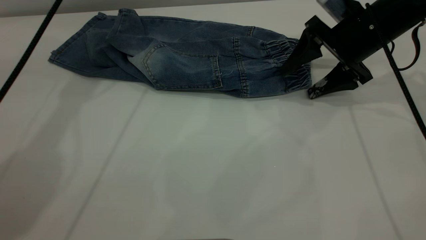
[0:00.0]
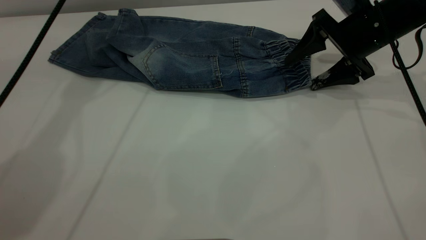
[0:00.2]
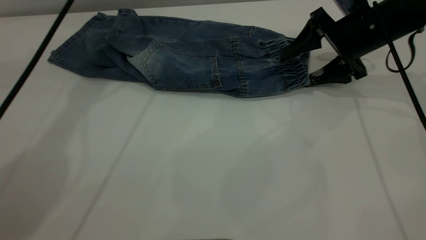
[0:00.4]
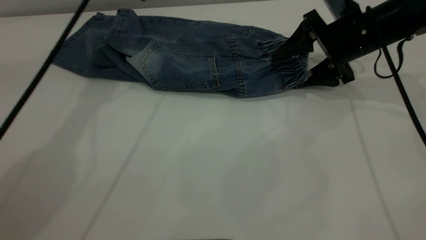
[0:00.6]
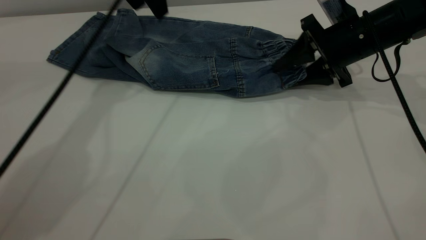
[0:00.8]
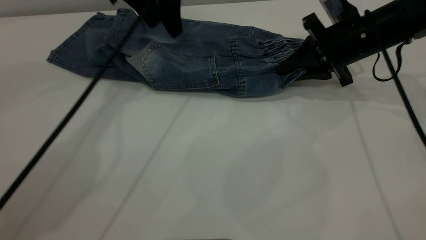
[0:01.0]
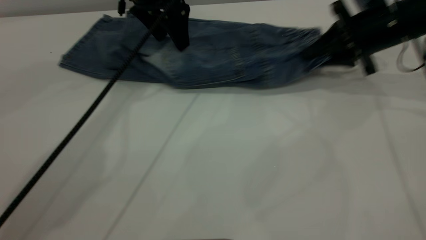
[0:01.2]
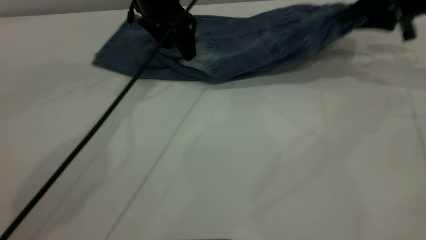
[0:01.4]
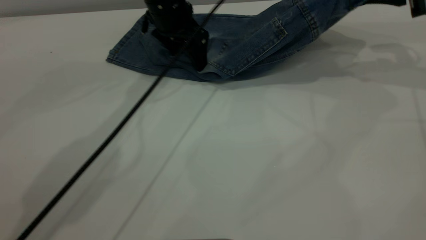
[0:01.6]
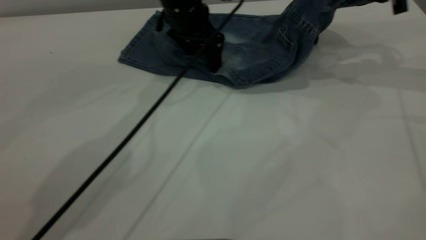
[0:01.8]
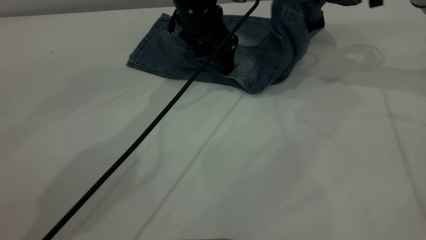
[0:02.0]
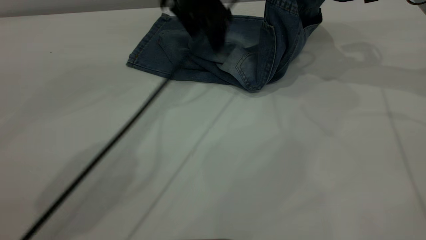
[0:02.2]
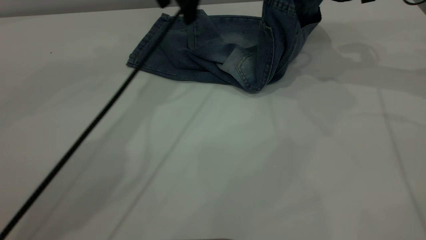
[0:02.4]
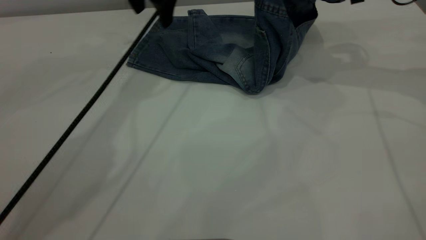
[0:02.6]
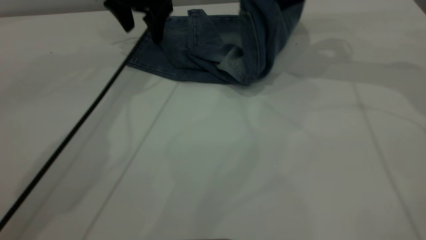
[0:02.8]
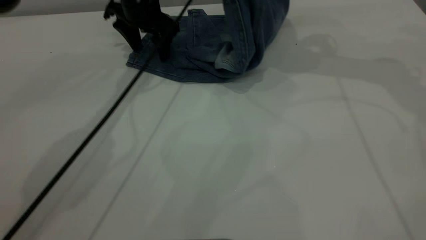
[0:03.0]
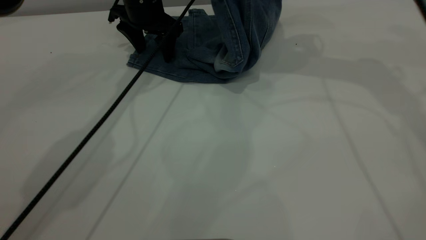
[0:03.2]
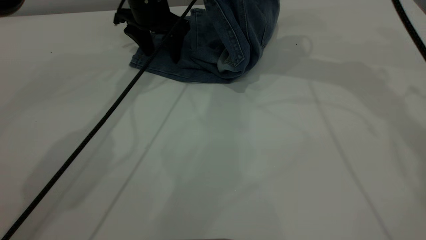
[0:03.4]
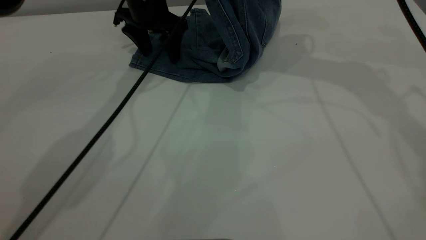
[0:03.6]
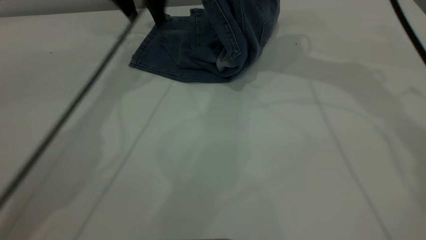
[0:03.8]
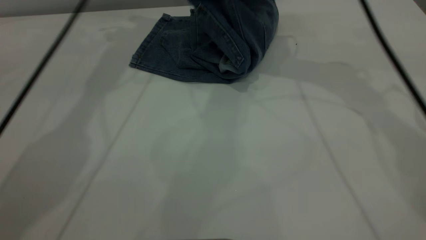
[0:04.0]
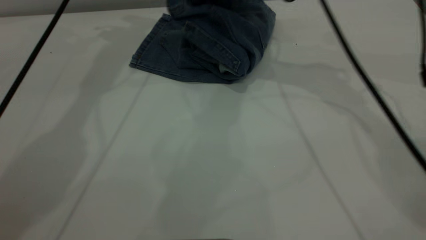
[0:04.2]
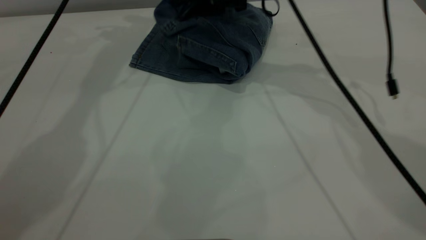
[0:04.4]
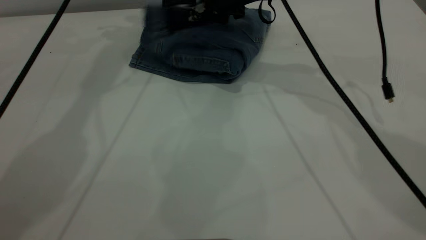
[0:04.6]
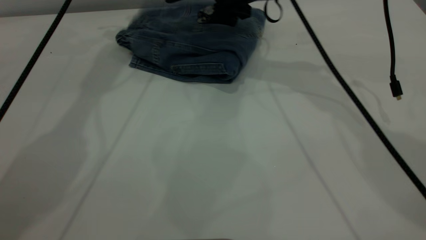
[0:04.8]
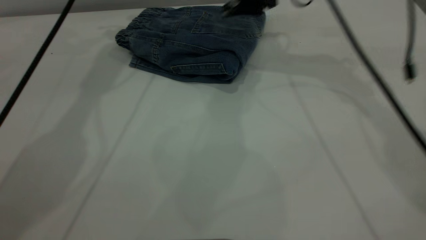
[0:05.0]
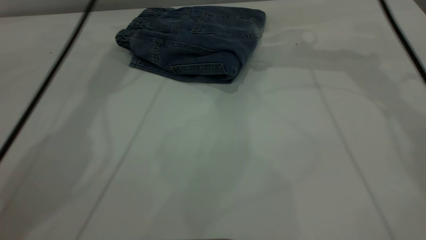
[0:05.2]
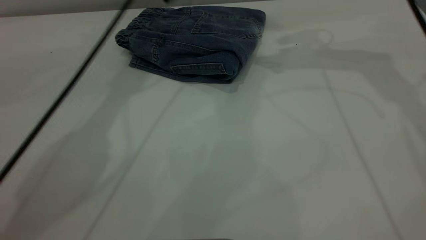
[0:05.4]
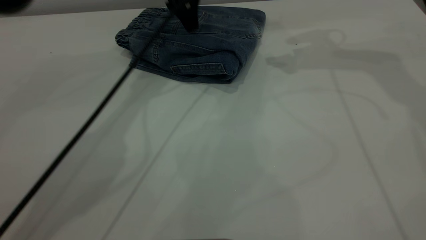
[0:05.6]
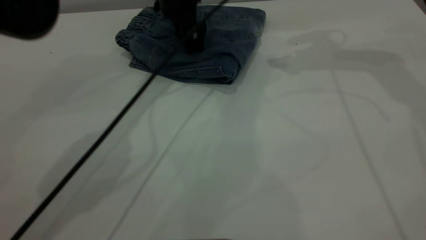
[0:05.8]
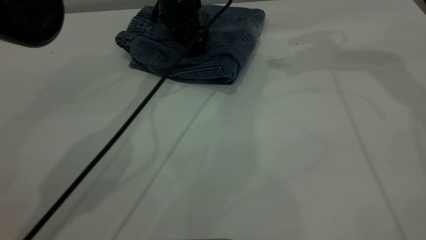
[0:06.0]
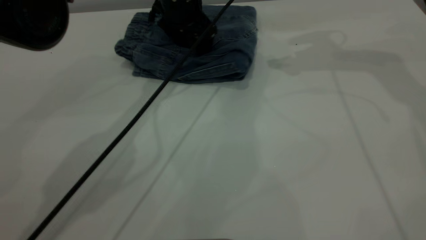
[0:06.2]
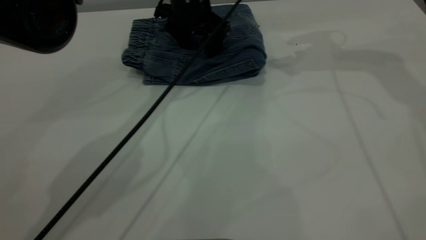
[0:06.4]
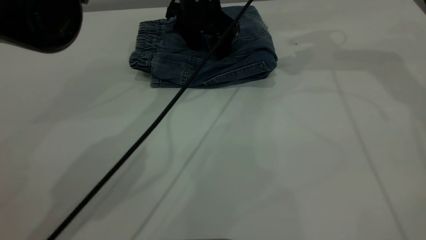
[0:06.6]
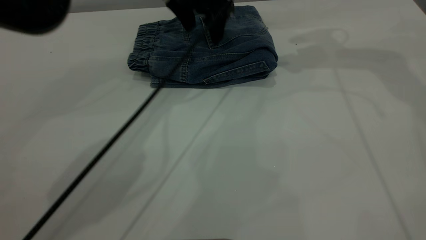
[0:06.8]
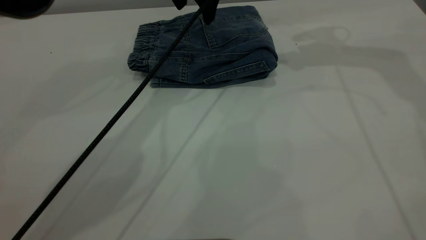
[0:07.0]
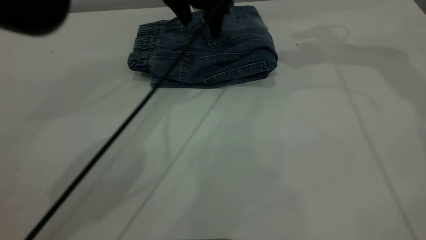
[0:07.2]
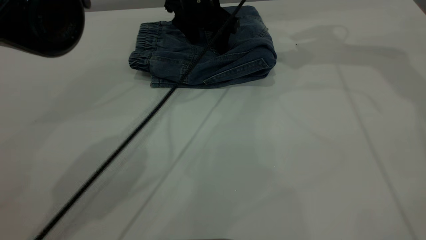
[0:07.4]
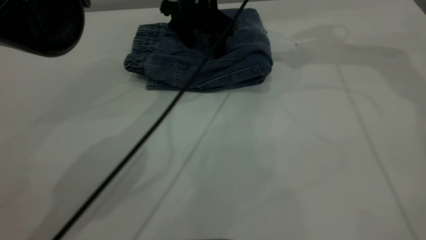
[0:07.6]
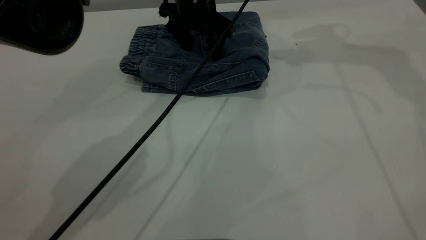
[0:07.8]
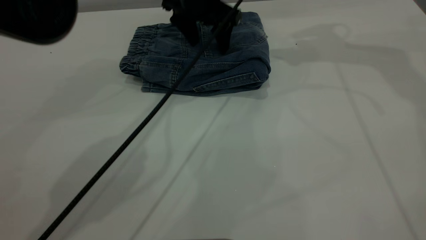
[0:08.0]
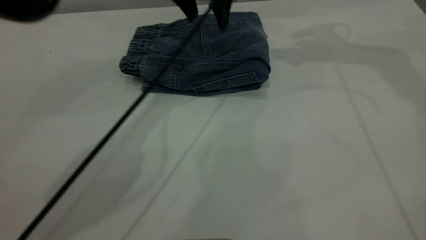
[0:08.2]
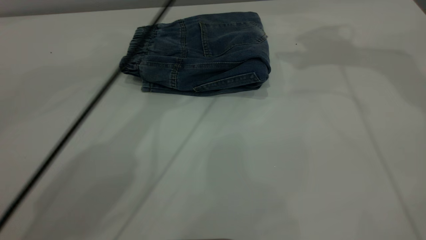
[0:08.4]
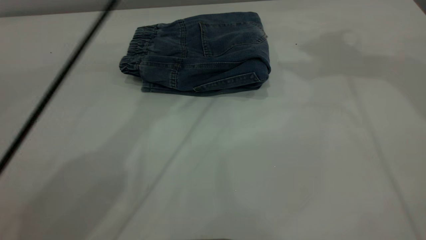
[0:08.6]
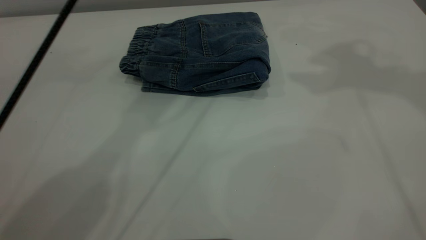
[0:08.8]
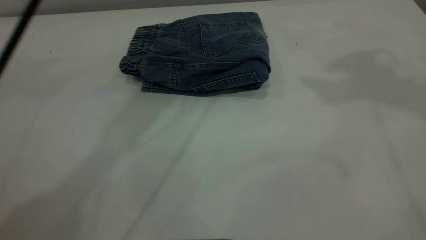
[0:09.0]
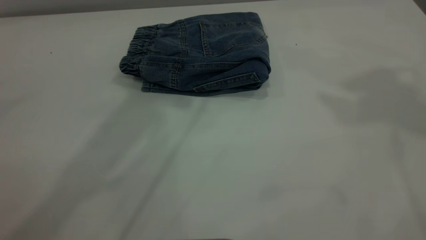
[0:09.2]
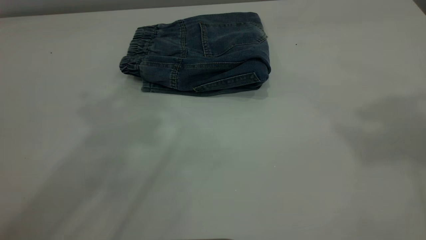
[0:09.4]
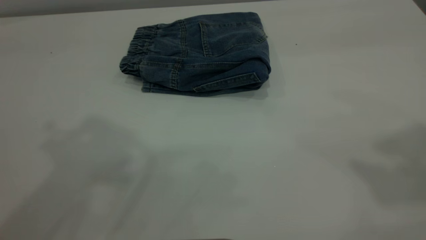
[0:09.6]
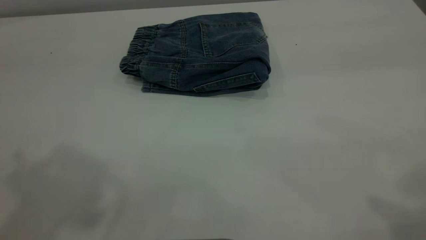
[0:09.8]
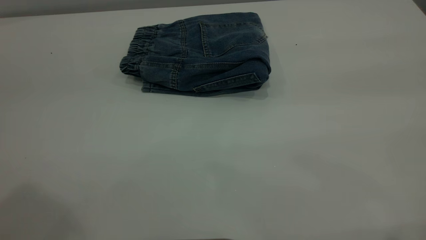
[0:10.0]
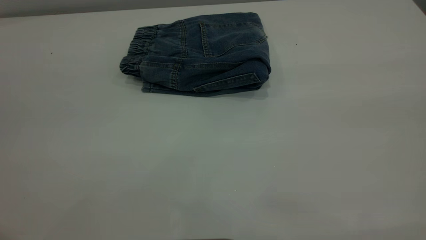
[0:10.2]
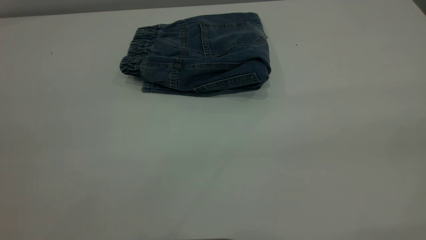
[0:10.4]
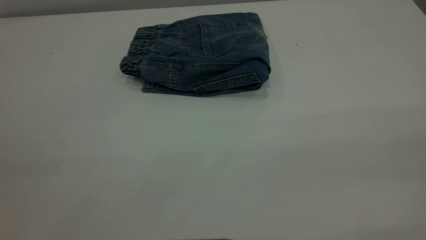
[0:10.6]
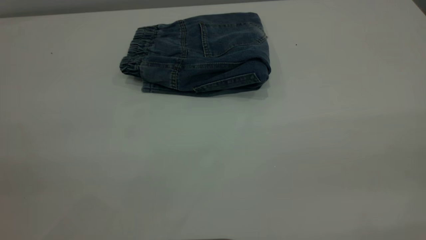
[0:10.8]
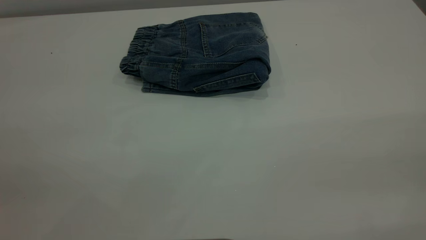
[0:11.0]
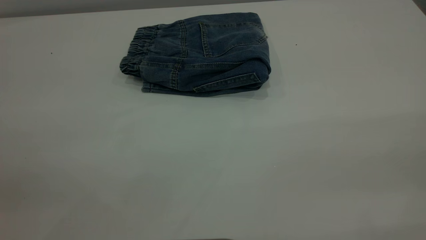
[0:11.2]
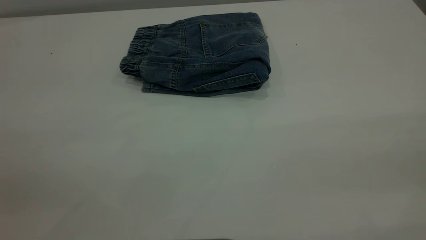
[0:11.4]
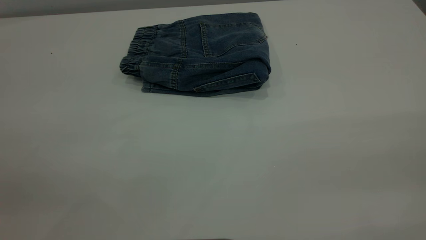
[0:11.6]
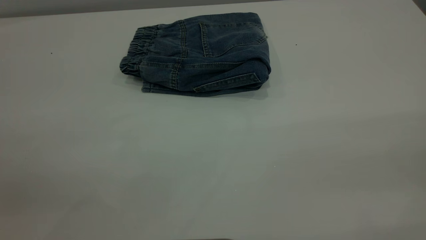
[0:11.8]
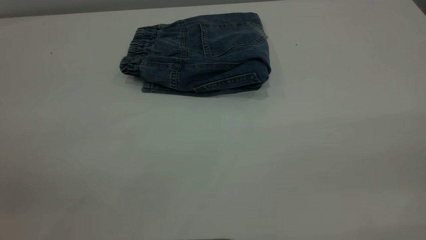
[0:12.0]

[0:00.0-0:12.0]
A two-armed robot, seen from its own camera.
Step, 0:00.0 to 0:05.6: Fold your pants from right to left.
0:00.0 to 0:01.6: The right gripper heads to the right and upward, covering approximately 10 cm, and closes, while the left gripper travels downward and to the right by approximately 20 cm.
0:01.6 to 0:03.0: The right gripper goes approximately 15 cm to the left and upward, while the left gripper goes about 5 cm to the left.
0:03.0 to 0:04.4: The right gripper is displaced to the left and downward by some 15 cm, while the left gripper moves upward, approximately 15 cm.
0:04.4 to 0:06.0: The right gripper goes approximately 15 cm to the right and upward, and opens. The left gripper moves downward and to the right, roughly 20 cm.
0:07.6 to 0:09.0: The left gripper is displaced upward by approximately 30 cm, while the right gripper heads upward and backward, covering approximately 25 cm.
0:09.0 to 0:10.4: The left gripper shifts roughly 40 cm backward and to the left.

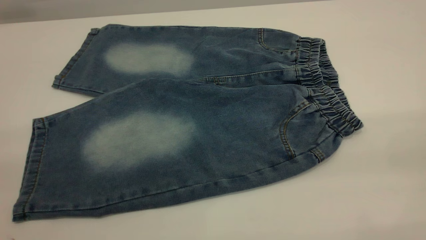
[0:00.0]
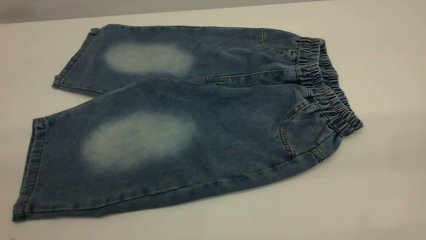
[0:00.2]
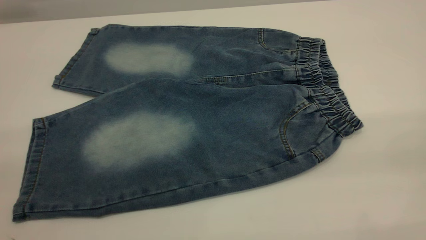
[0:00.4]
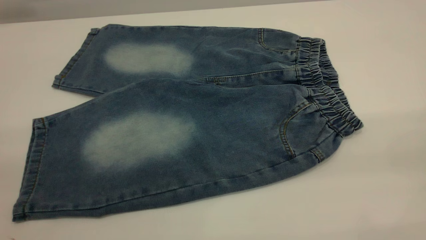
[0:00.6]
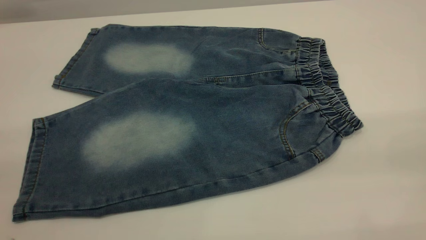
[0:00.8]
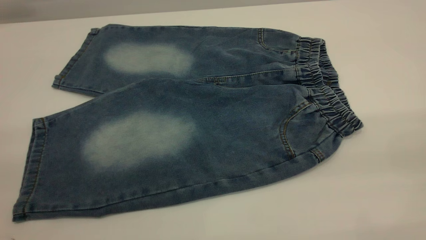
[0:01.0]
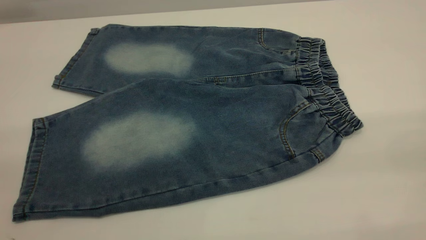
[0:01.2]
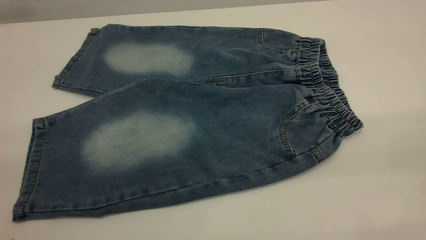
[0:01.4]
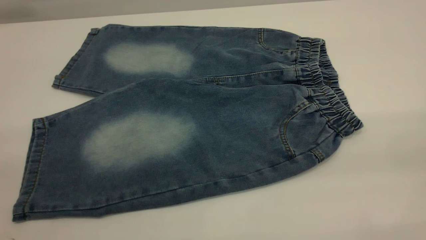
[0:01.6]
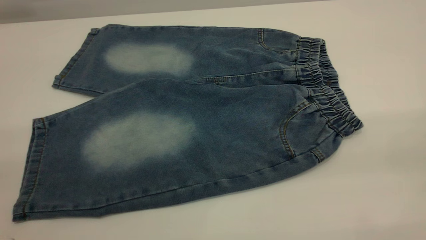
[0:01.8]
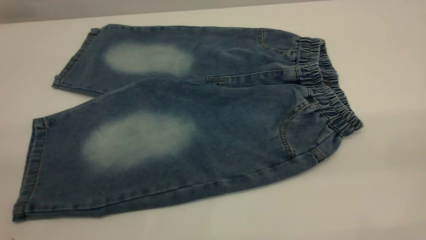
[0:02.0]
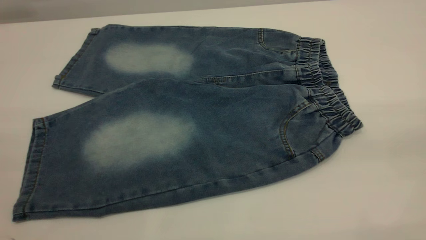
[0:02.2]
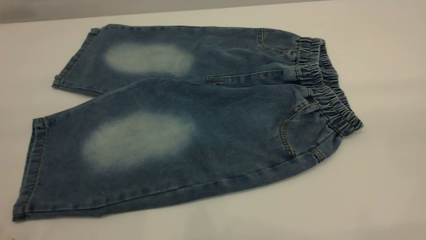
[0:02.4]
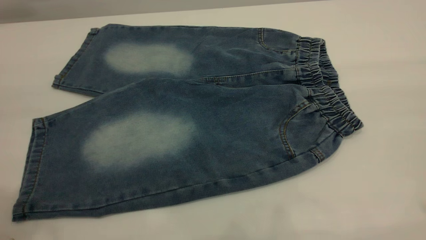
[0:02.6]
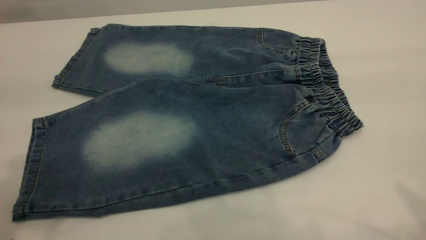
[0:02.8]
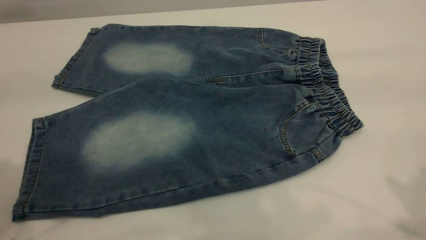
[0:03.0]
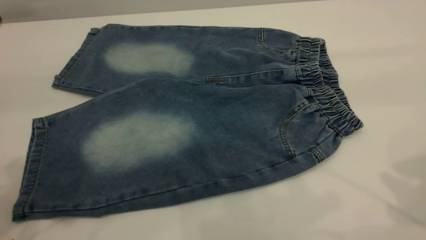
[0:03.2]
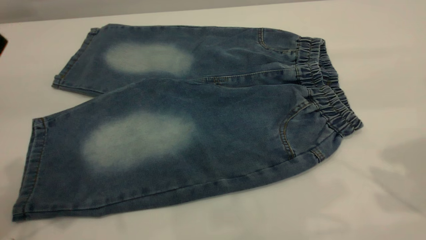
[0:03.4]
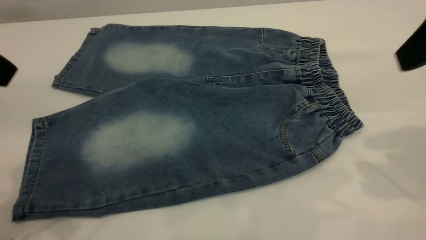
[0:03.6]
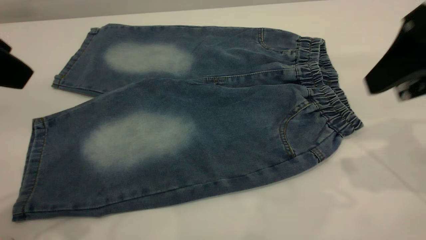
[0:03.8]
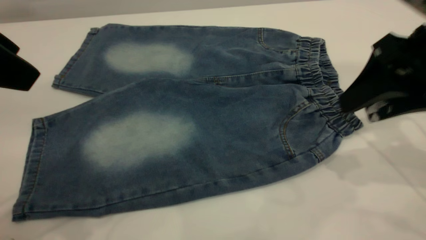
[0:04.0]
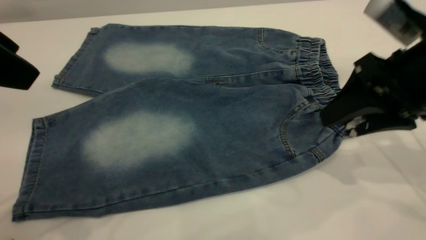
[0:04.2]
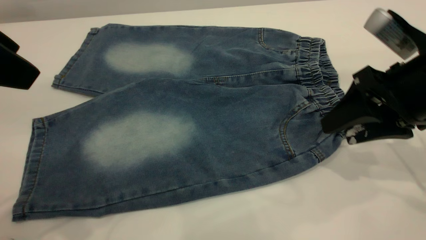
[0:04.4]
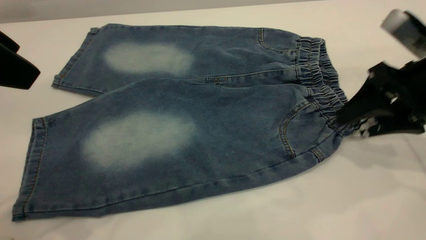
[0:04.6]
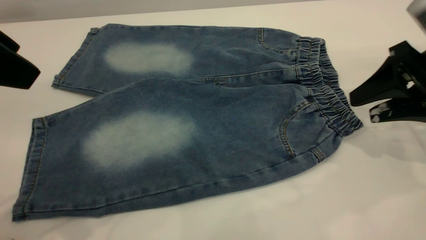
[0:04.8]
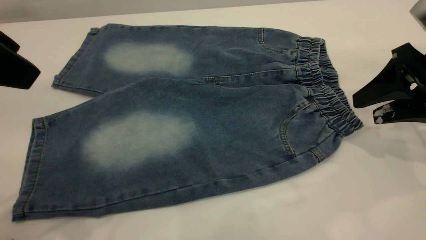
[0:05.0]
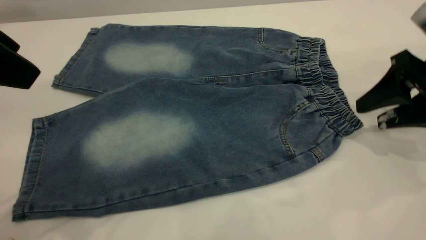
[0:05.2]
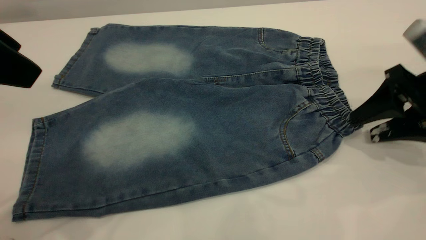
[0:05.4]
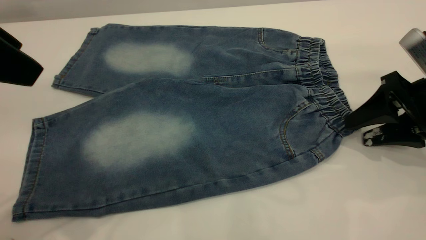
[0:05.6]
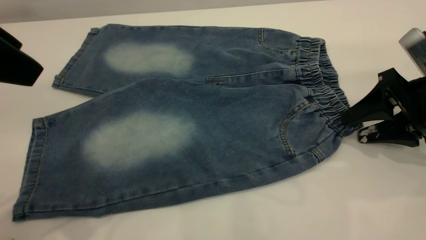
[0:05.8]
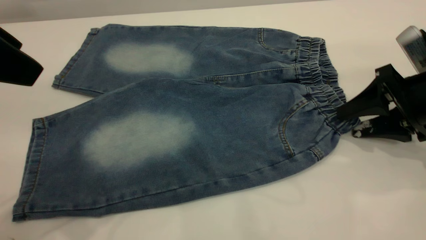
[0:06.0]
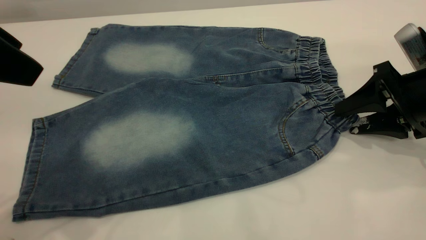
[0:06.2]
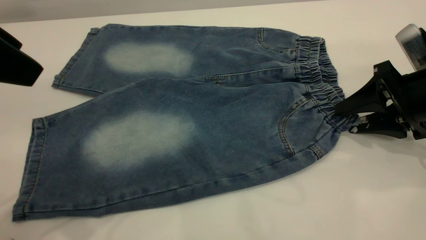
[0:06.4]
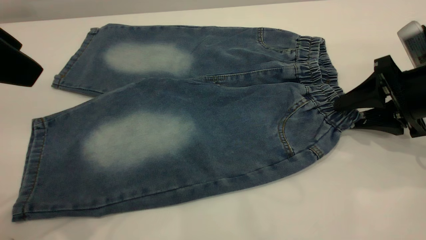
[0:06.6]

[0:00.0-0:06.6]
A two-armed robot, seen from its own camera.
0:00.0 to 0:01.6: Both grippers stay put.
0:03.2 to 0:05.0: The right gripper travels downward and forward by about 20 cm.
0:05.0 to 0:06.6: The grippers make only small movements.
